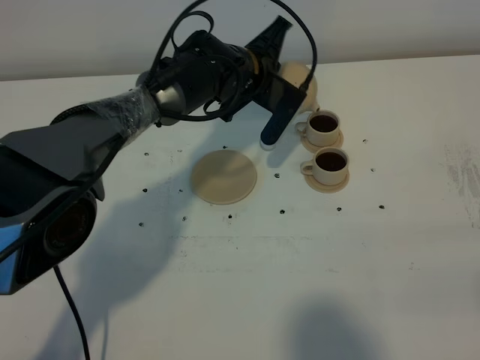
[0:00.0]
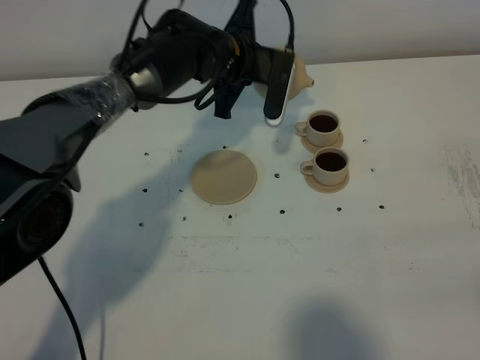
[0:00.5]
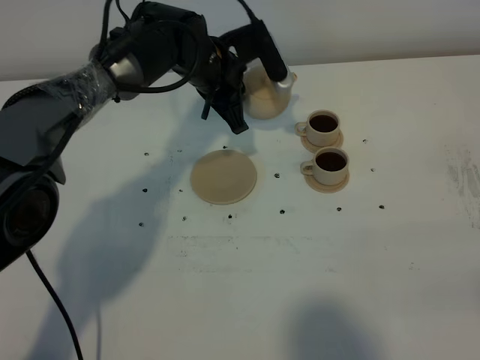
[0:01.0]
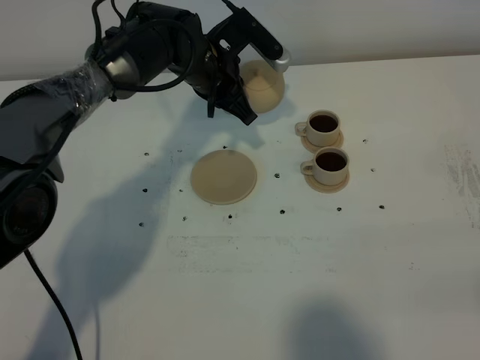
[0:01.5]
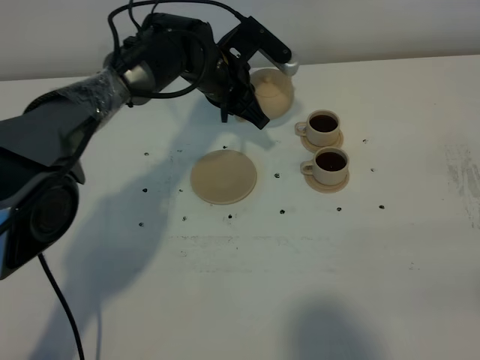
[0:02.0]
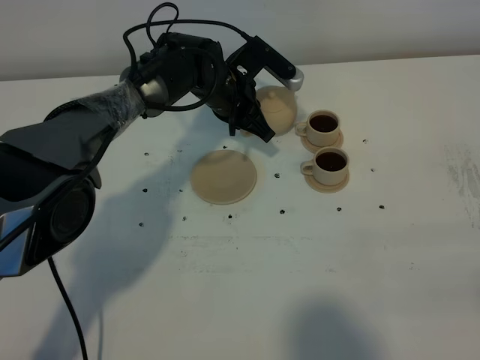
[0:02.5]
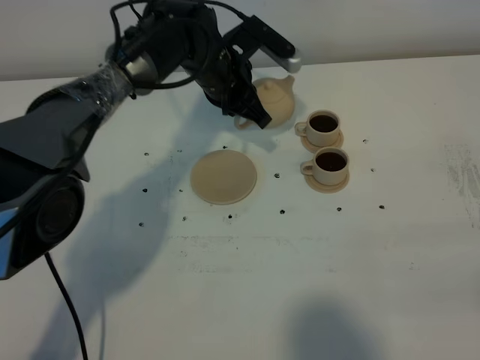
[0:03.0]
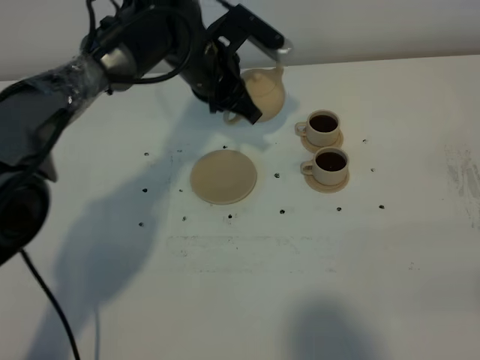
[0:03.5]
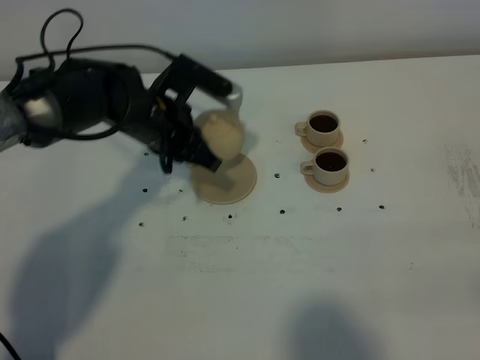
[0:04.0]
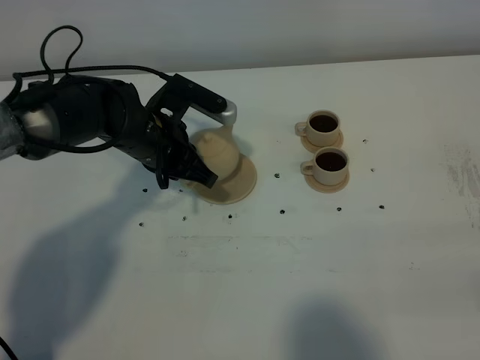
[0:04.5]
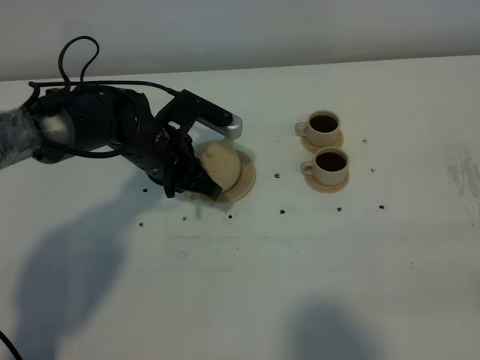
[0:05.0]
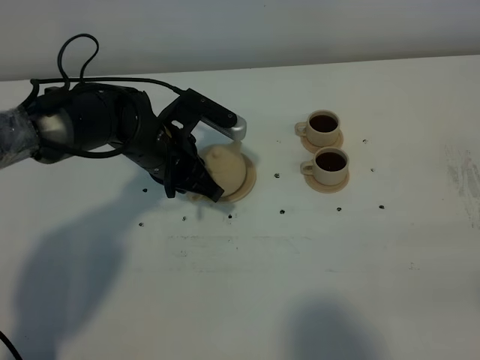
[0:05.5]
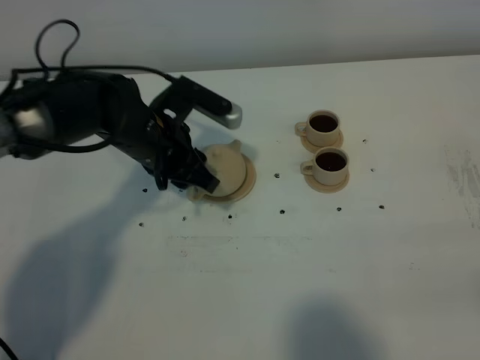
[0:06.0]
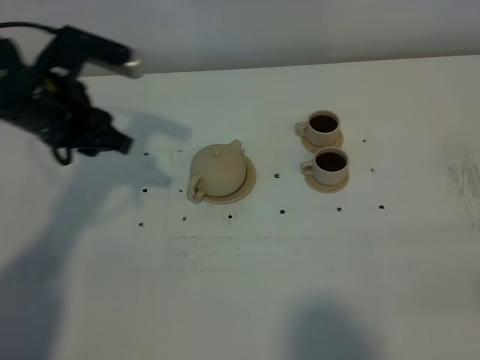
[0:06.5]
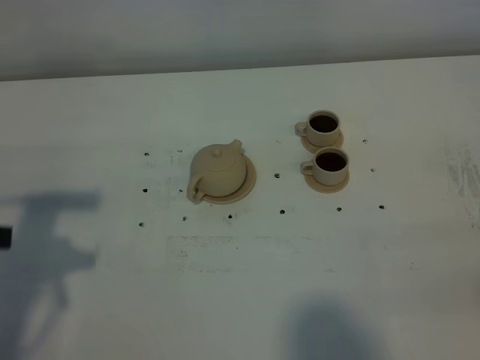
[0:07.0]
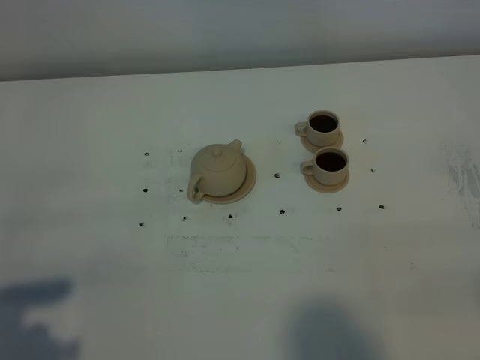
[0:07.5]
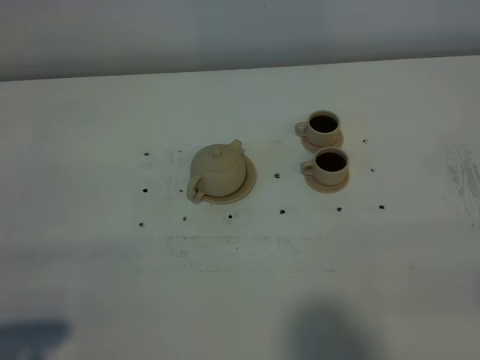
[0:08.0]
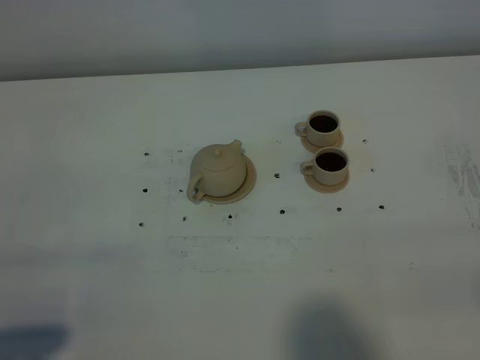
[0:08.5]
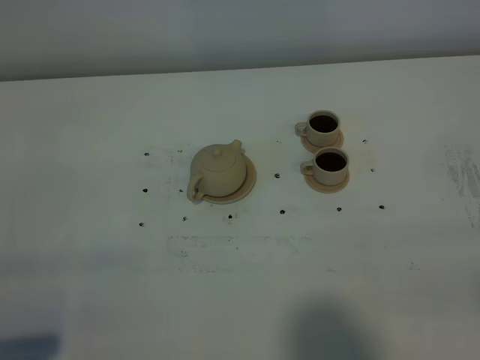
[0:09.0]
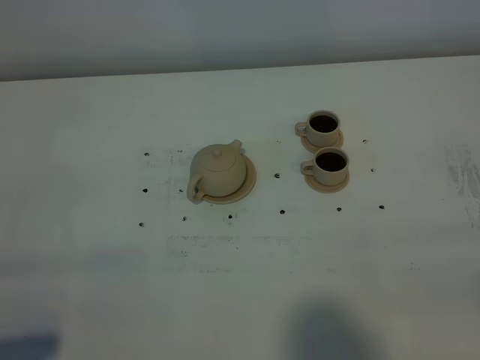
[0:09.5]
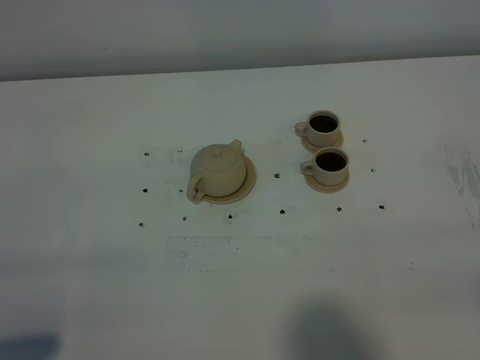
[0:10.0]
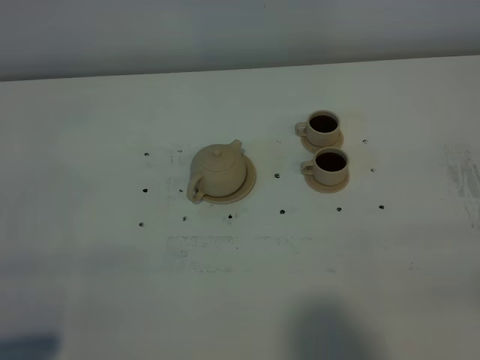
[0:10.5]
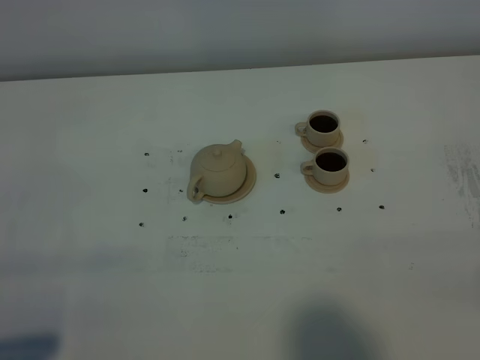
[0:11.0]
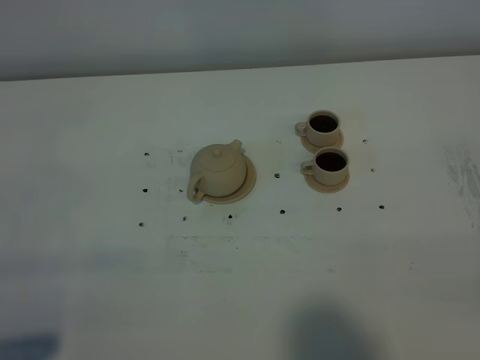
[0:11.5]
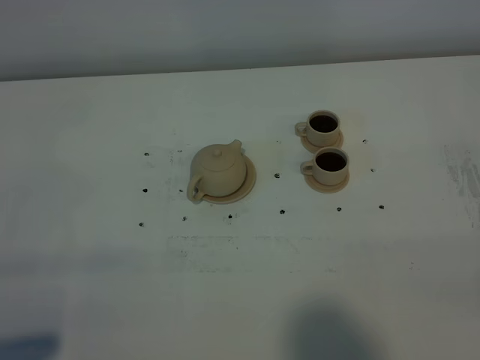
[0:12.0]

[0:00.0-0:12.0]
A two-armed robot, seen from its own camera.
Task of the whole recording: grasp the brown teapot and pour the tea into the two brown teacups one by one, put the brown teapot back in its original place.
0:02.0 to 0:04.0: The left gripper travels backward and to the left by approximately 10 cm.
0:04.0 to 0:06.0: The left gripper opens.
0:06.0 to 0:08.0: The left gripper goes about 40 cm backward and to the left.

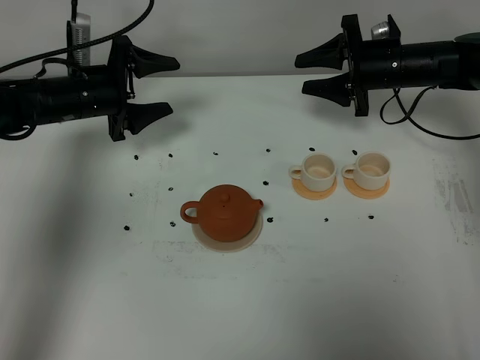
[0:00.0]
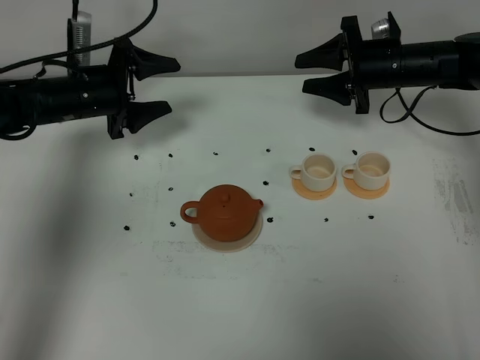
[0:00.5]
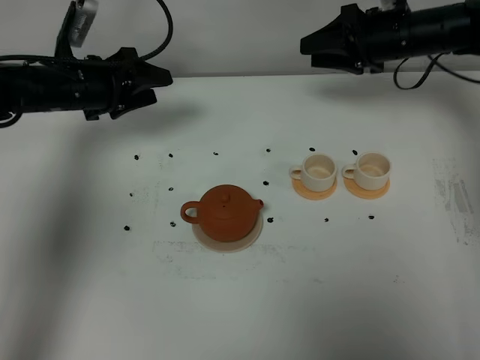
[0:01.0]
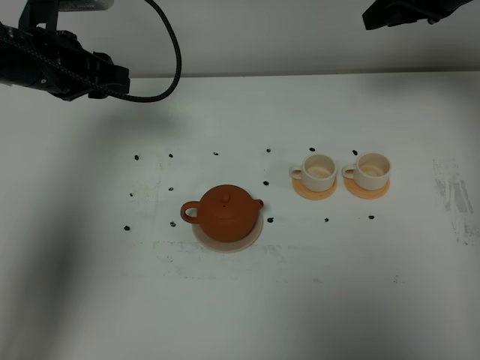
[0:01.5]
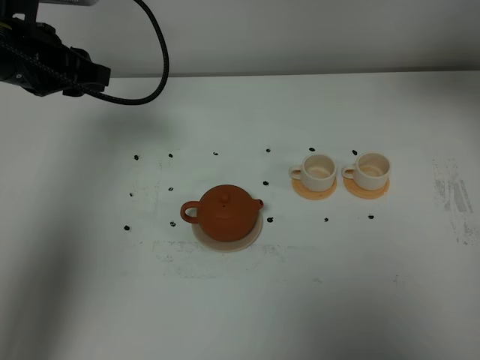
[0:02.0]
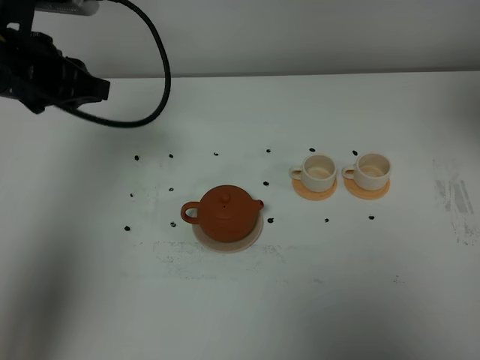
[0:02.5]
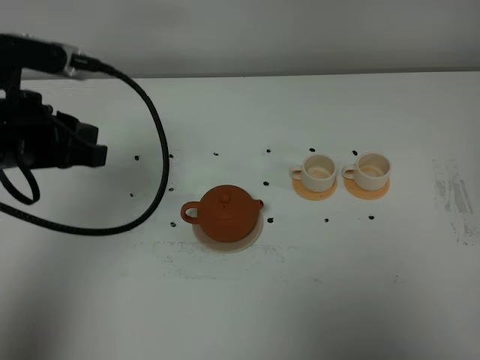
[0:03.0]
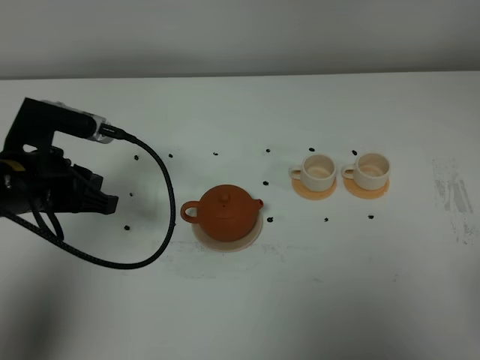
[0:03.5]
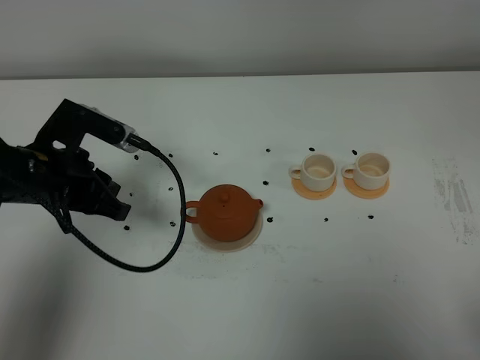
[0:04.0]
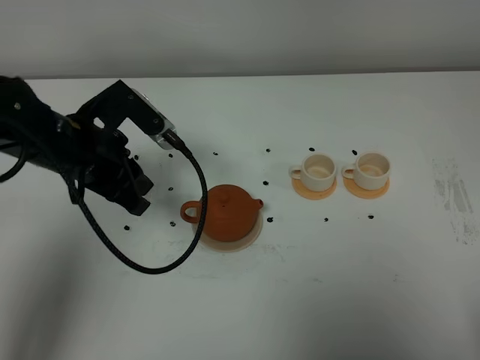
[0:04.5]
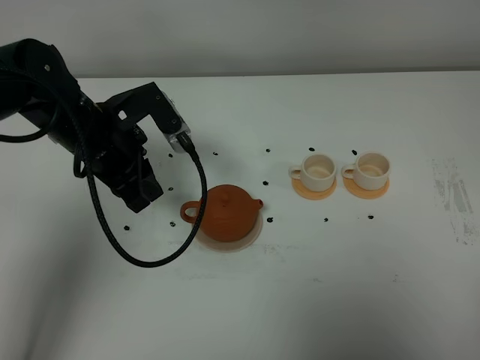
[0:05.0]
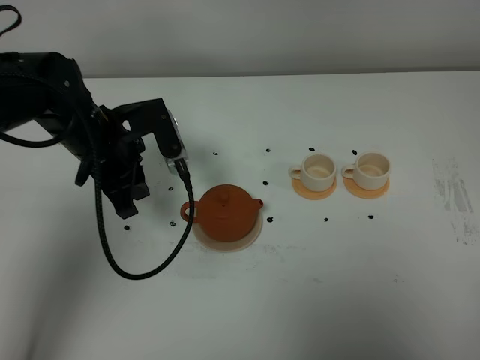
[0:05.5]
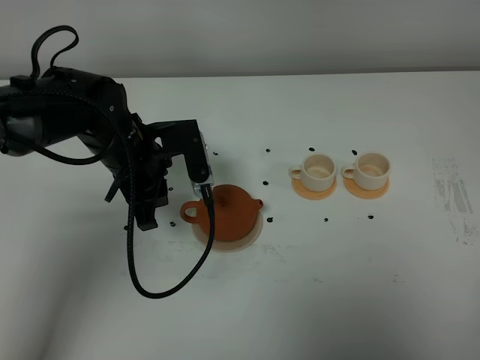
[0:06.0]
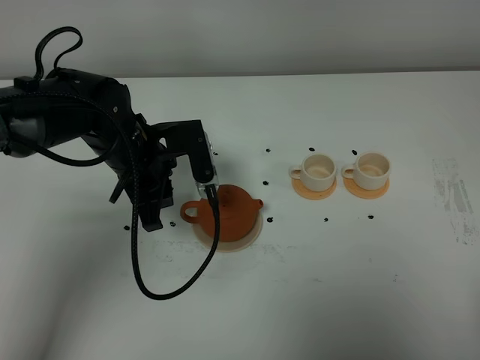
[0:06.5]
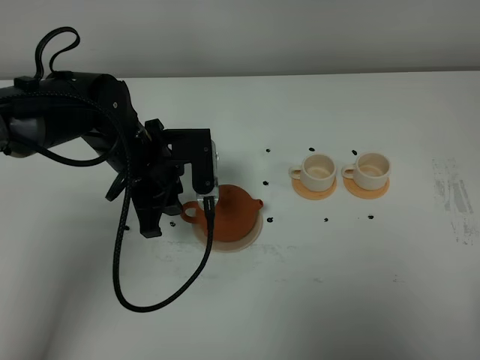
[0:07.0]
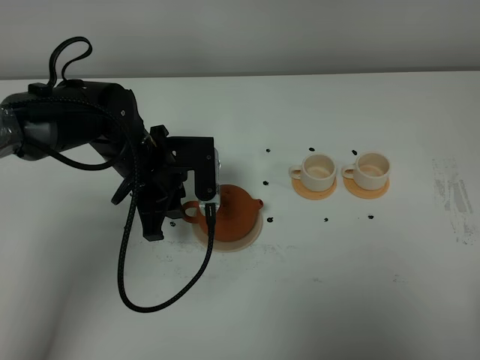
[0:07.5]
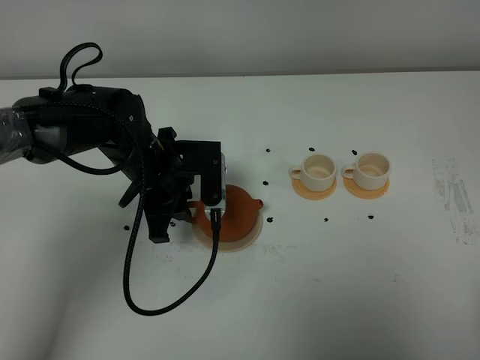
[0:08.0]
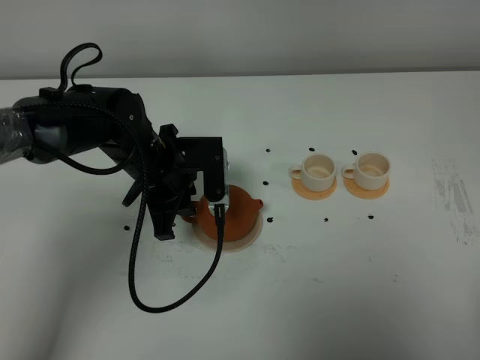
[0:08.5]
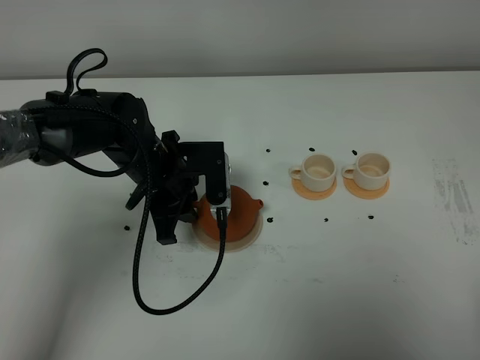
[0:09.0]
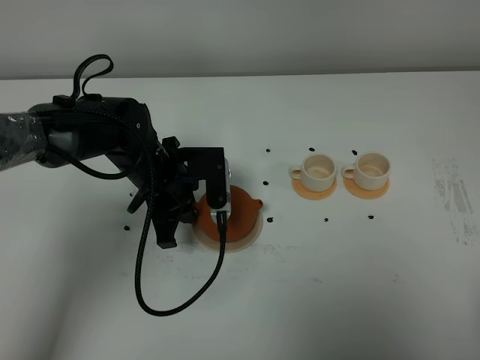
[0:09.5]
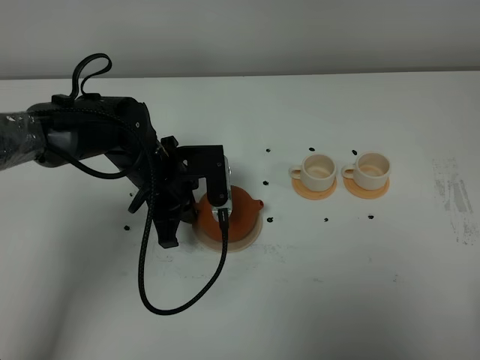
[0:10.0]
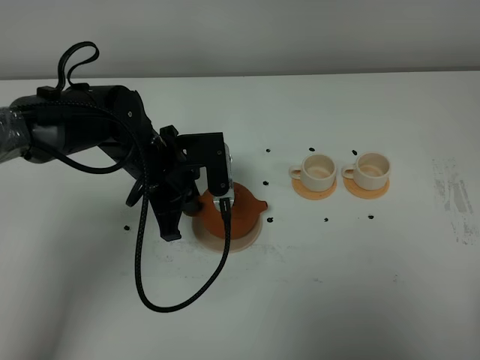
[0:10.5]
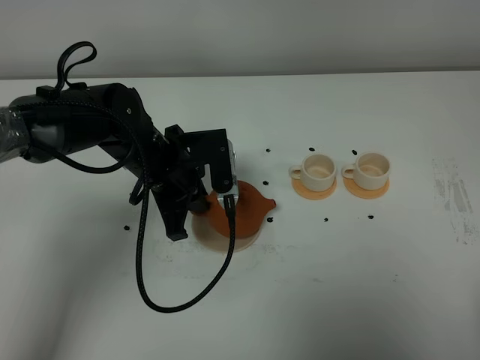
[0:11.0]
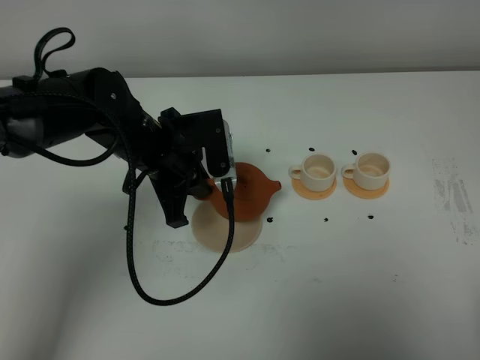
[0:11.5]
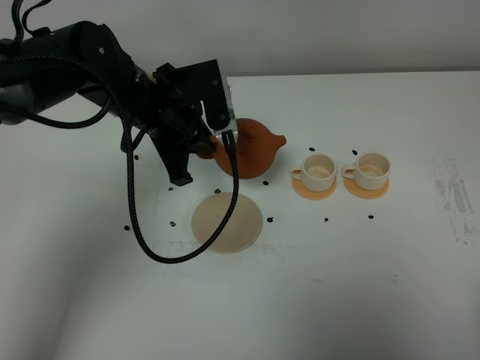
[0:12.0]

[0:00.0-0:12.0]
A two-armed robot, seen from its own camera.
Task of the whole recording: grasp the brown teapot and pour the tea into the two white teacups one by one, put the brown teapot back in its original place.
Step, 0:00.0 to 0:11.0: Pick up the teapot with the left gripper.
0:00.0 to 0:02.0: The left gripper is displaced upward and backward by some 15 cm, and closes its fingers. Meanwhile the right gripper goes some 30 cm upward and backward.
0:02.0 to 0:04.0: The right gripper is displaced backward by some 35 cm, while the left gripper goes about 15 cm downward and backward.
0:04.0 to 0:06.0: The left gripper heads to the right and forward, covering about 10 cm.
0:06.0 to 0:08.0: There are only small adjustments of the grippers.
0:08.0 to 0:10.0: The left gripper closes up.
0:10.0 to 0:12.0: The left gripper shifts about 10 cm upward.

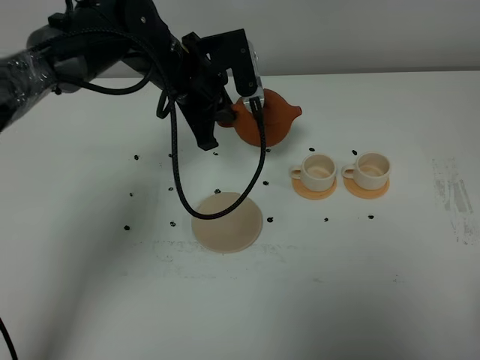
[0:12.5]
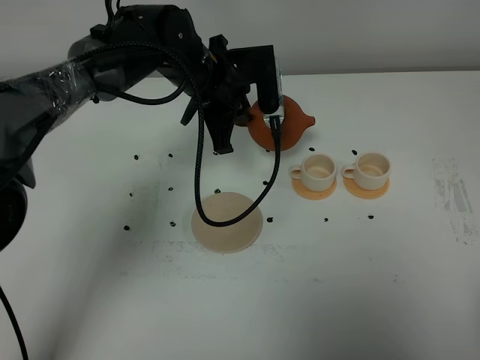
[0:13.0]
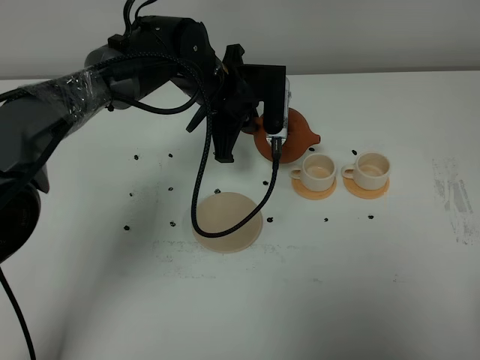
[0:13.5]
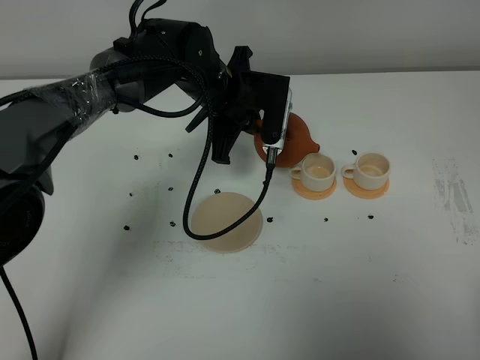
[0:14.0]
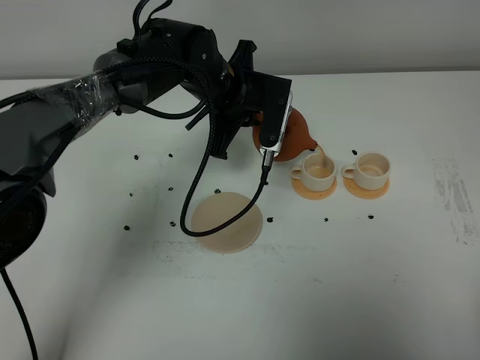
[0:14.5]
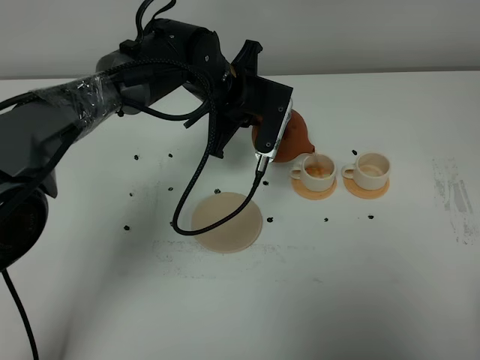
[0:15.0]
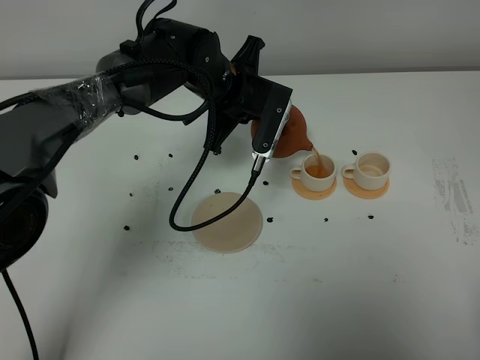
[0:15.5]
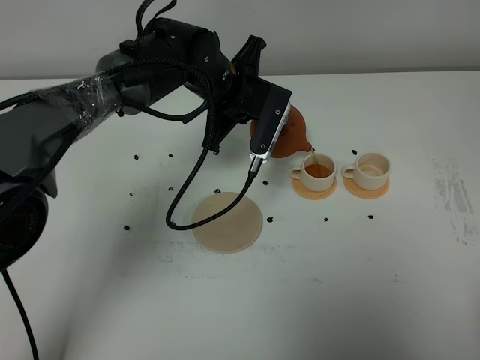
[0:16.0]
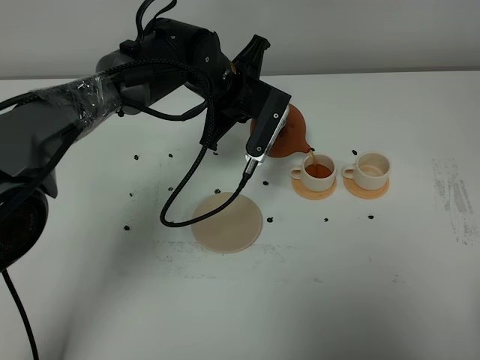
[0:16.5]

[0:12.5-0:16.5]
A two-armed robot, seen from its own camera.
Task of the whole recording: grasp the brown teapot and pour the tea into the two white teacups one by one, put the brown teapot back in its original place.
0:12.5 to 0:14.5: The left gripper ends up approximately 5 cm from where it was.
0:14.5 to 0:16.5: The grippers stay close to where they were, moving slightly.
